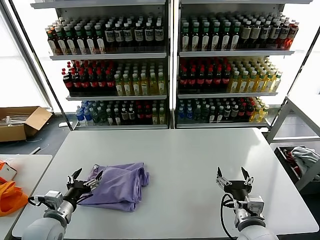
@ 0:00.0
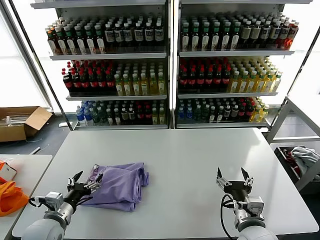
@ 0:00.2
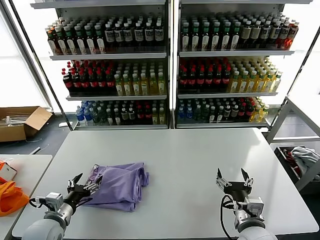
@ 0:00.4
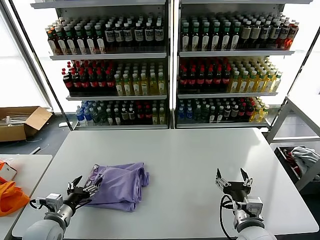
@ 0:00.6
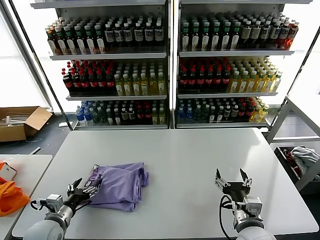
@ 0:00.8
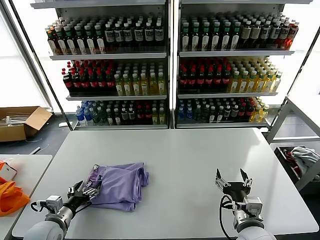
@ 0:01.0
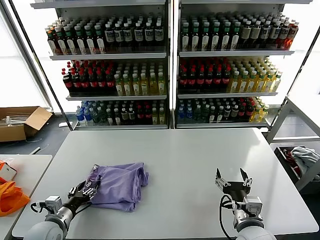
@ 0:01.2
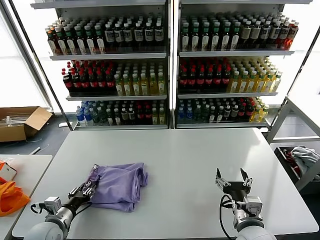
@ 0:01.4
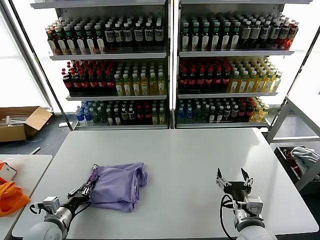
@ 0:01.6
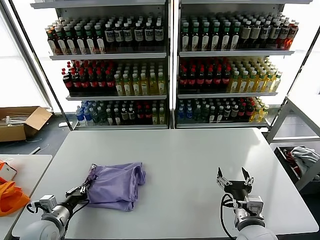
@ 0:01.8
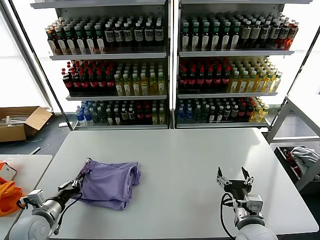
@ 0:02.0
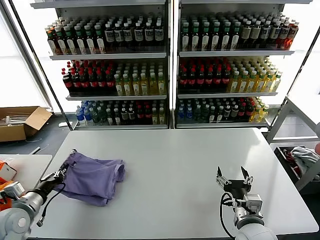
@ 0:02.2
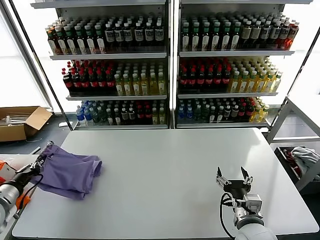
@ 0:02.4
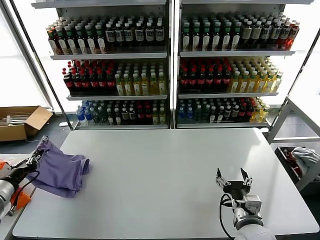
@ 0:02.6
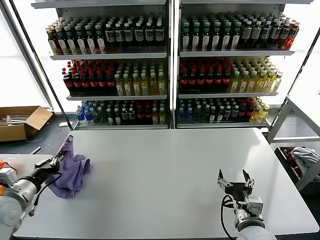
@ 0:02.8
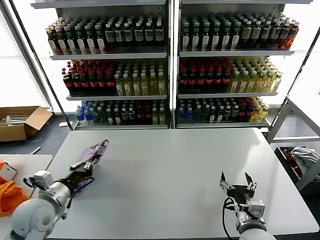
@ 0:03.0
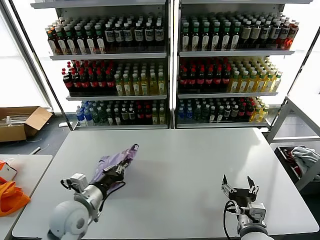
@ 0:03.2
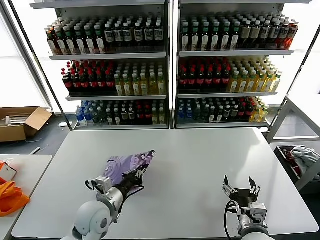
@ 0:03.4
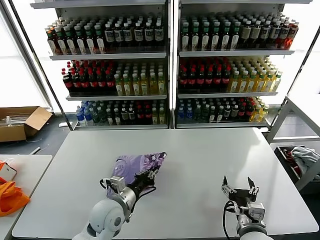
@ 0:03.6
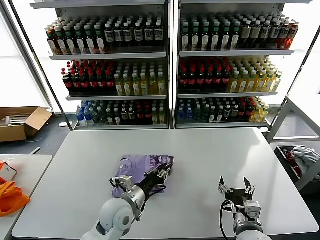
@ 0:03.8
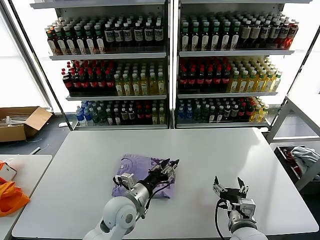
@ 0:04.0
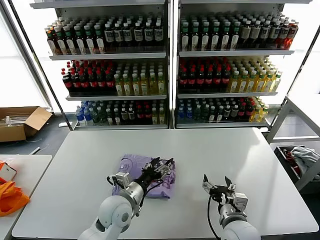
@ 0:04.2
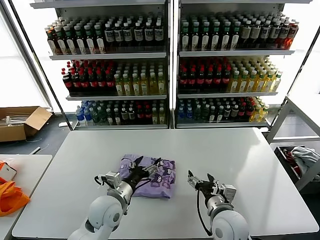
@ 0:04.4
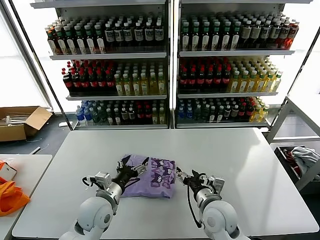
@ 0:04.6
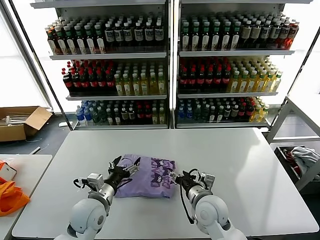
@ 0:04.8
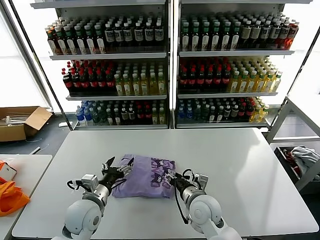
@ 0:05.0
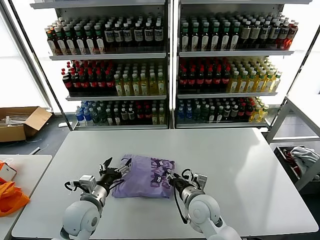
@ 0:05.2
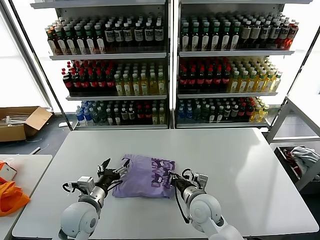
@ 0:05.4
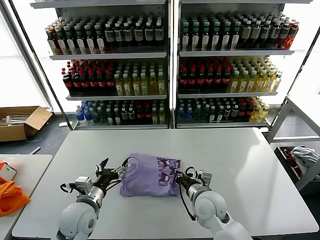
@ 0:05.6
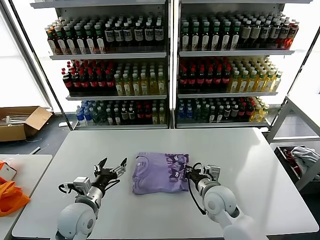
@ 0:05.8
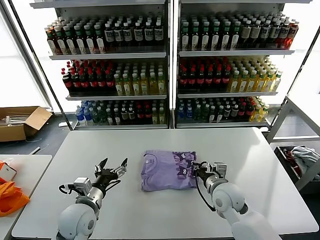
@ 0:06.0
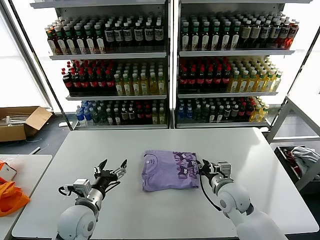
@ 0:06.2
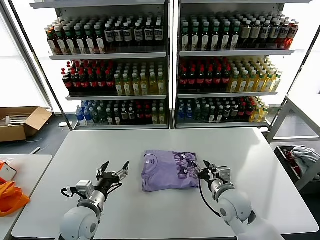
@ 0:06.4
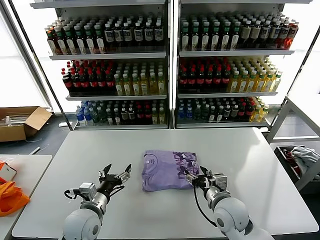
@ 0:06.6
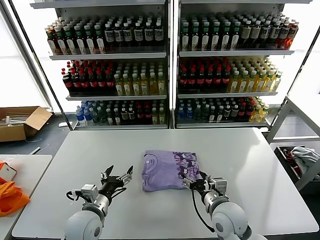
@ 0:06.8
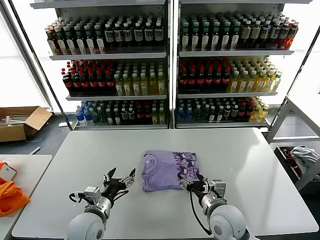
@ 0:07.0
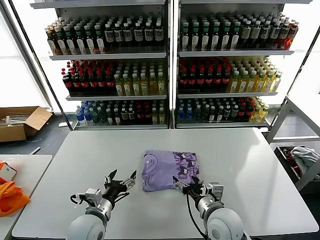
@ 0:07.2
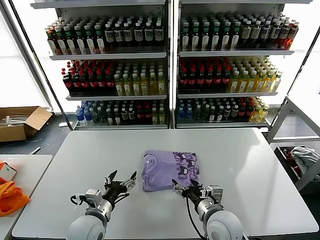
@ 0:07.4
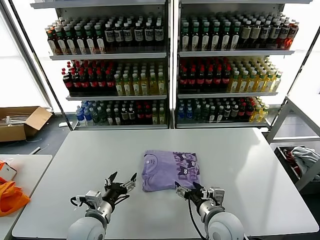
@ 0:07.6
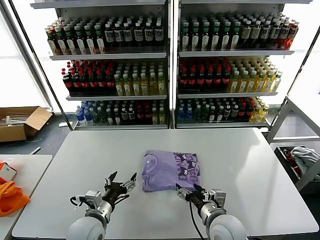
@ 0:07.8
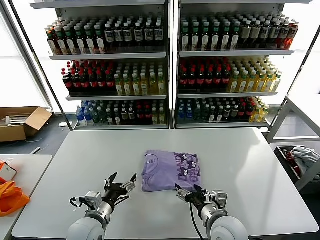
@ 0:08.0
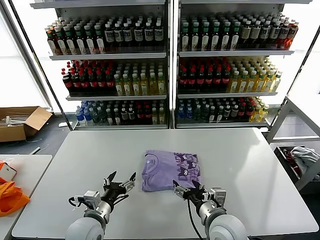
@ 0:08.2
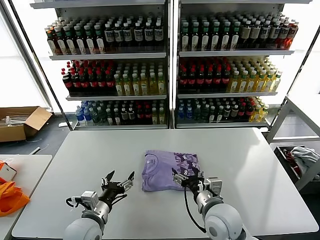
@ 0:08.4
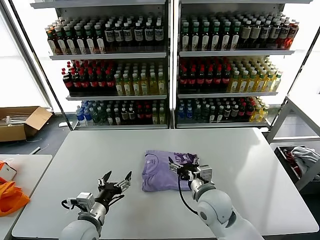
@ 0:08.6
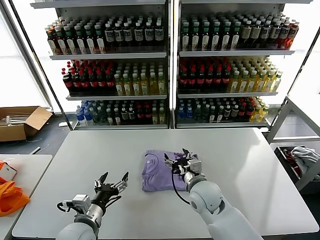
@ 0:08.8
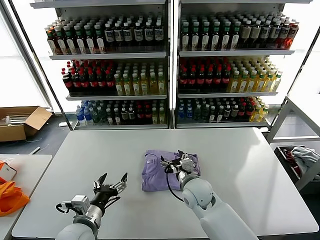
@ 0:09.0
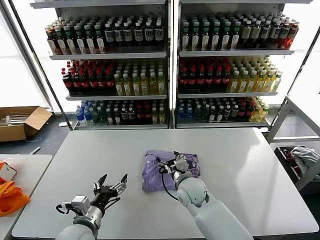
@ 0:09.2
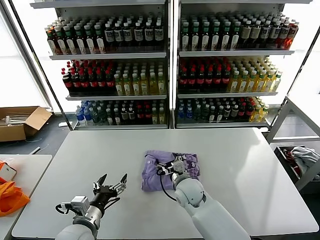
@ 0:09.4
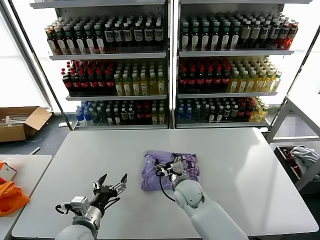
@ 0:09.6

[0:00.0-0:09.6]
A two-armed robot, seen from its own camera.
Task of the whole recording: fold and organize the clothes.
Step, 0:00.0 to 0:04.0: Flip the folded clothes over with left gripper.
0:00.0 to 0:01.6: The left gripper moves some 5 cm, and closes.
0:01.6 to 0:03.2: The left gripper goes approximately 15 cm upward and to the right.
0:03.2 to 0:04.8: The left gripper shifts approximately 5 cm to the right, and opens its fingers. The right gripper moves forward and to the left, some 15 cm.
0:04.8 to 0:06.4: The right gripper heads to the right, covering about 5 cm, and closes its fingers.
0:06.4 to 0:08.0: The right gripper goes approximately 10 cm backward, and opens its fingers.
0:08.0 to 0:09.6: The right gripper travels forward and to the left by approximately 15 cm.

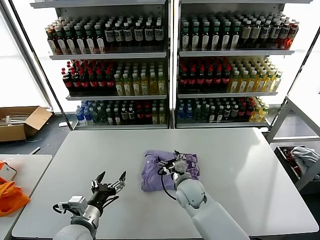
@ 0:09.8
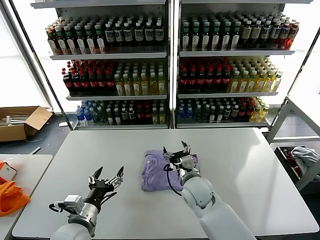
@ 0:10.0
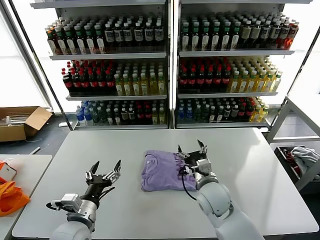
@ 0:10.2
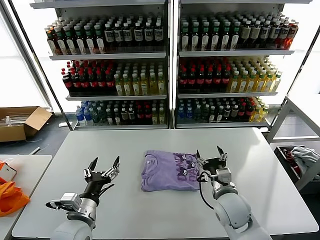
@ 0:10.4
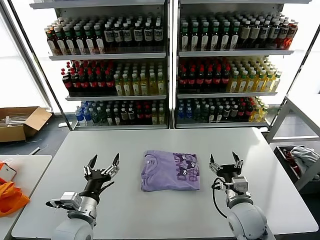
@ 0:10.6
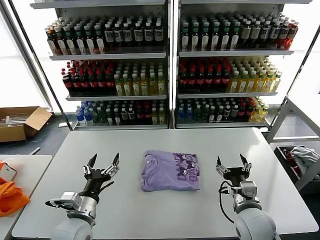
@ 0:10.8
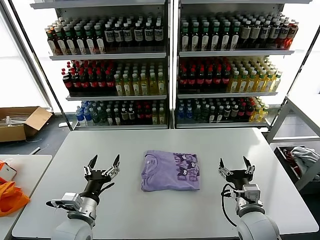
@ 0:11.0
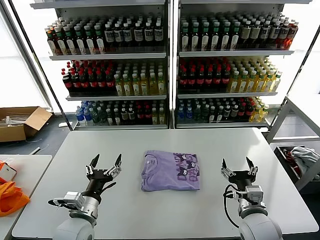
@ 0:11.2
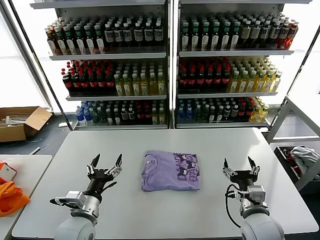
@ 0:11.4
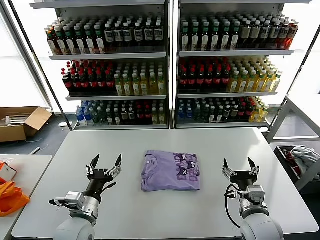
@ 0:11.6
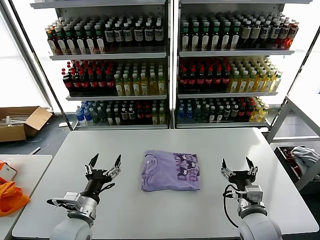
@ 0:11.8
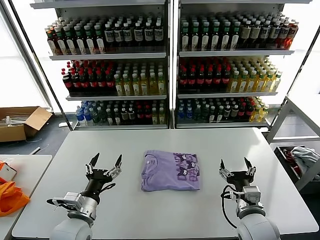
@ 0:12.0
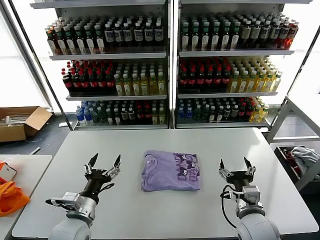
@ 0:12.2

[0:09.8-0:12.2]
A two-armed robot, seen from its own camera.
Task of the whole recording: fold and organize the clothes.
0:09.8 to 0:11.0: The right gripper moves to the right and backward, about 20 cm.
0:11.0 to 0:12.2: The grippers stay close to where they were, moving slightly.
